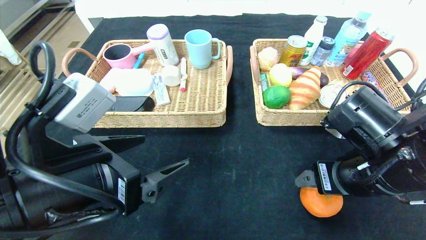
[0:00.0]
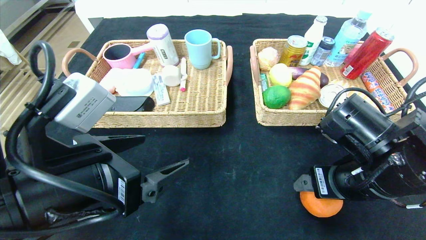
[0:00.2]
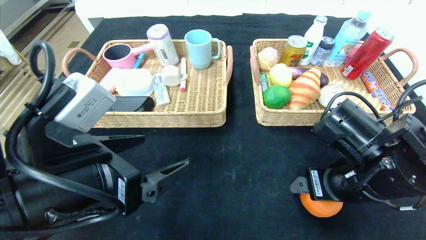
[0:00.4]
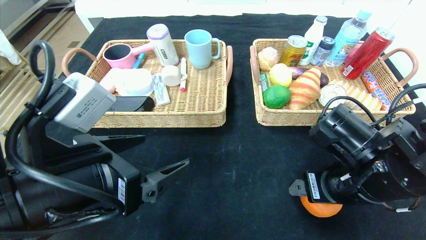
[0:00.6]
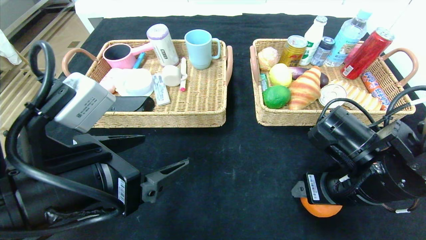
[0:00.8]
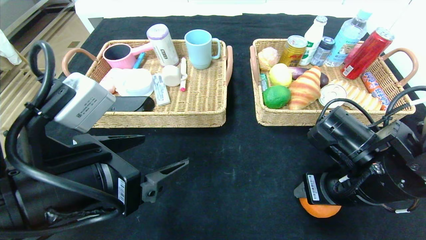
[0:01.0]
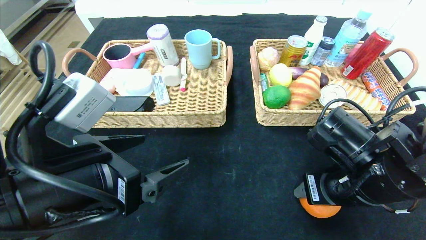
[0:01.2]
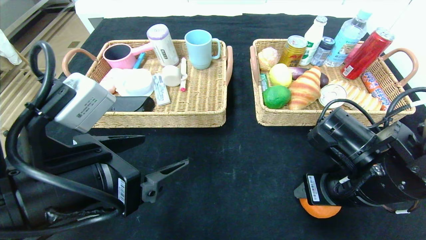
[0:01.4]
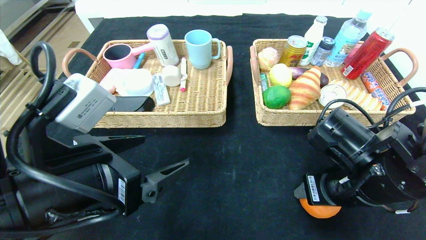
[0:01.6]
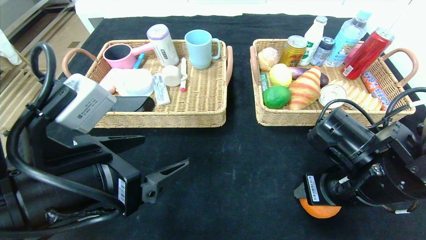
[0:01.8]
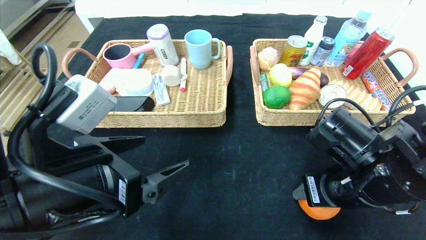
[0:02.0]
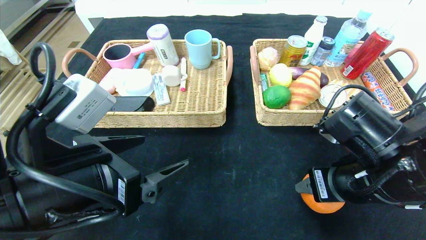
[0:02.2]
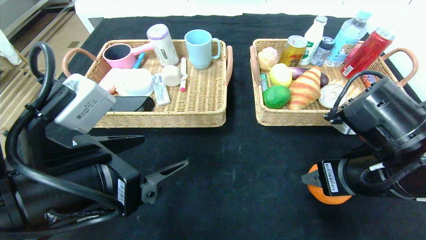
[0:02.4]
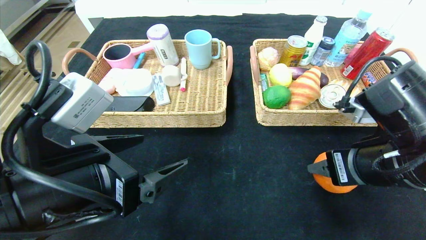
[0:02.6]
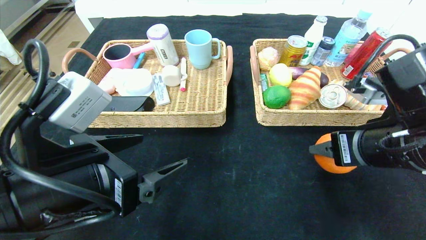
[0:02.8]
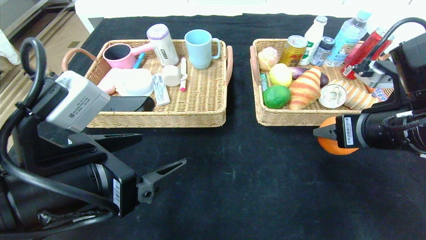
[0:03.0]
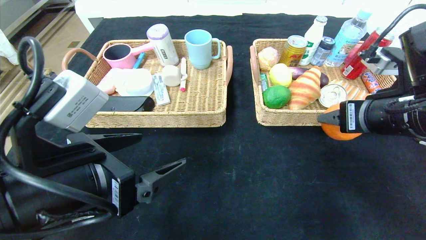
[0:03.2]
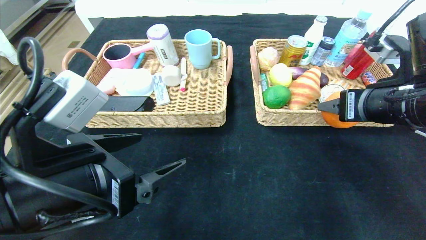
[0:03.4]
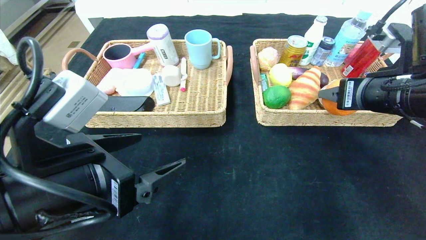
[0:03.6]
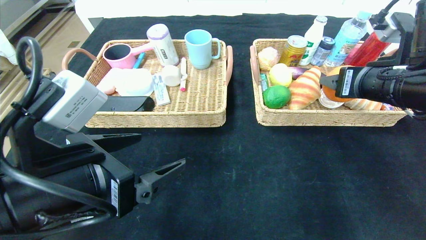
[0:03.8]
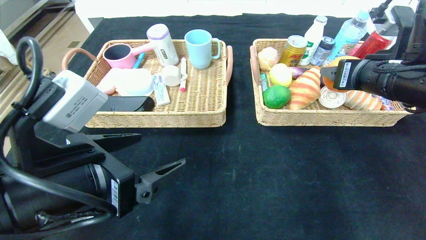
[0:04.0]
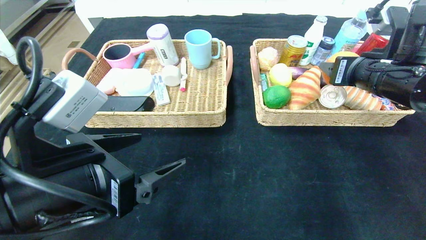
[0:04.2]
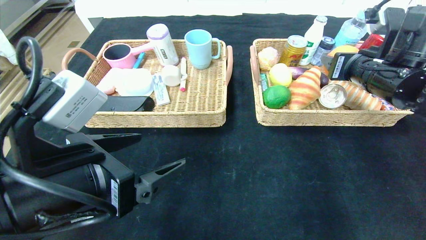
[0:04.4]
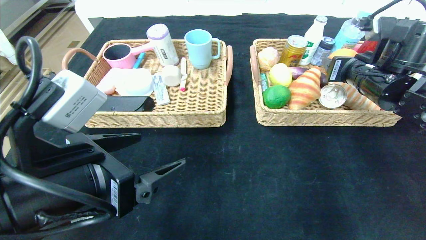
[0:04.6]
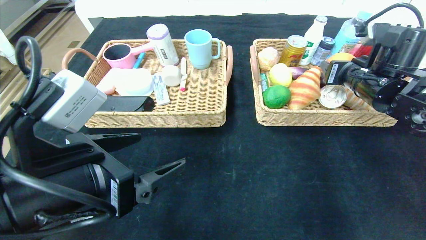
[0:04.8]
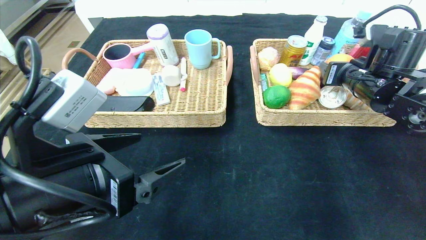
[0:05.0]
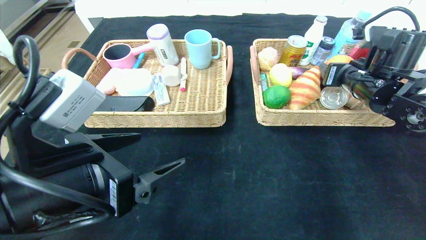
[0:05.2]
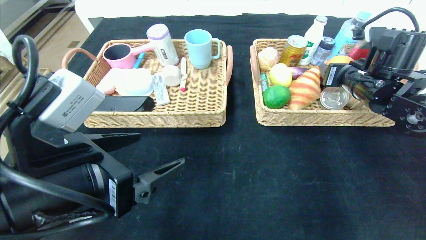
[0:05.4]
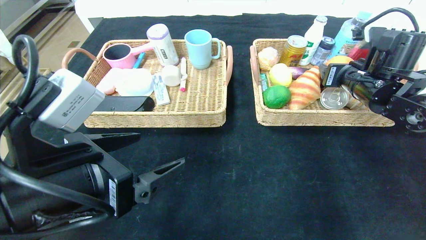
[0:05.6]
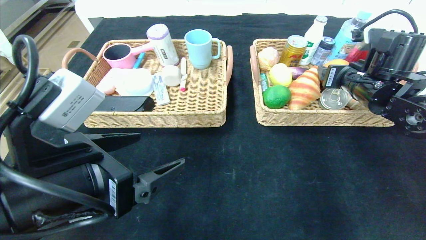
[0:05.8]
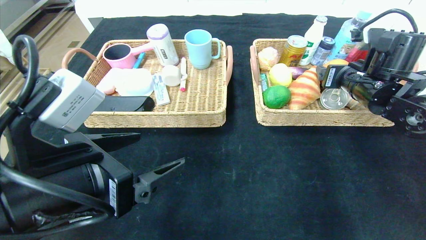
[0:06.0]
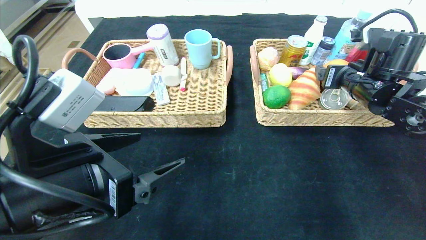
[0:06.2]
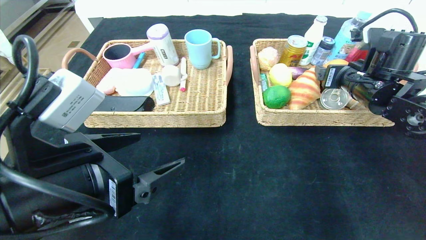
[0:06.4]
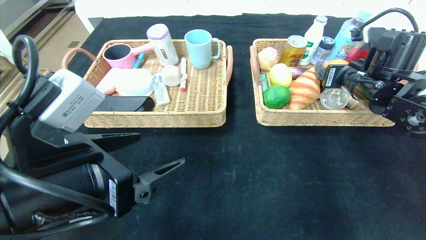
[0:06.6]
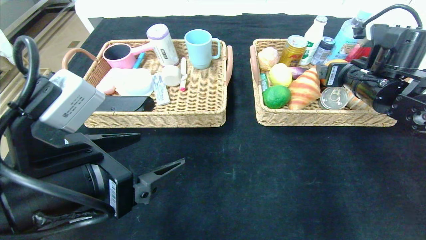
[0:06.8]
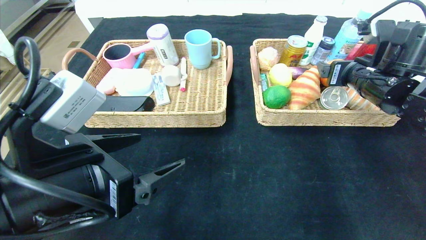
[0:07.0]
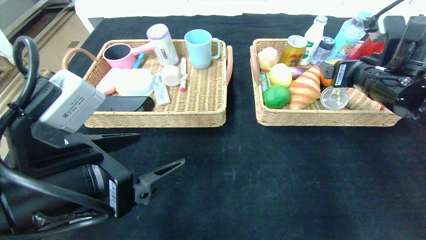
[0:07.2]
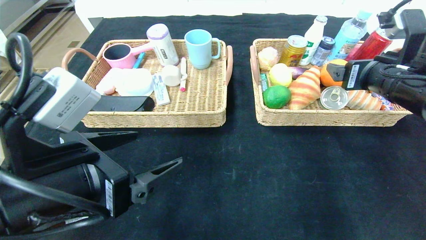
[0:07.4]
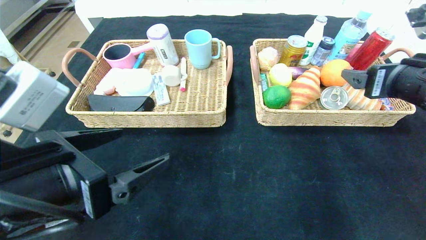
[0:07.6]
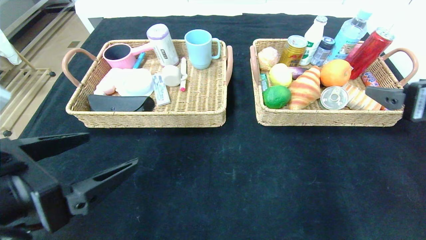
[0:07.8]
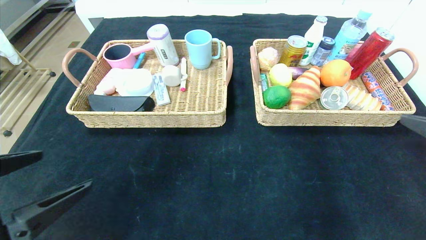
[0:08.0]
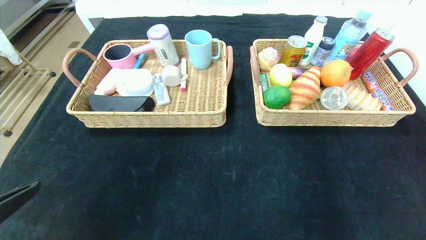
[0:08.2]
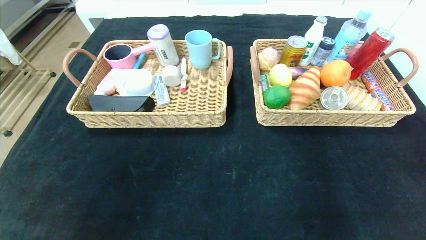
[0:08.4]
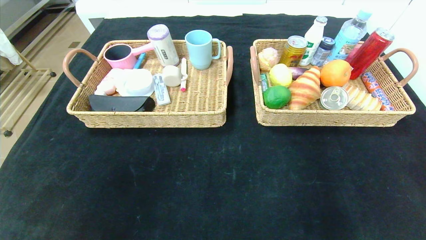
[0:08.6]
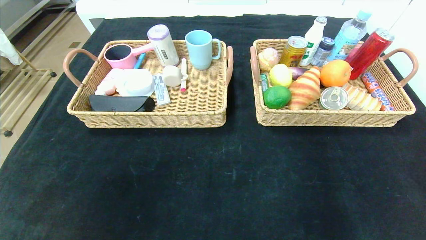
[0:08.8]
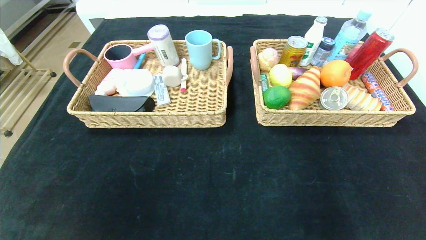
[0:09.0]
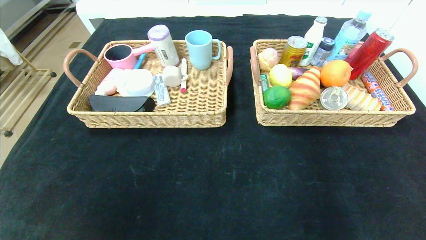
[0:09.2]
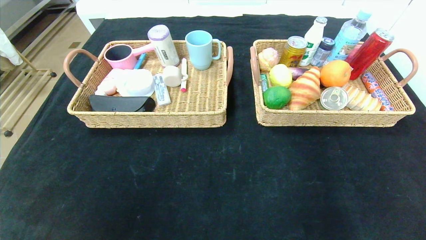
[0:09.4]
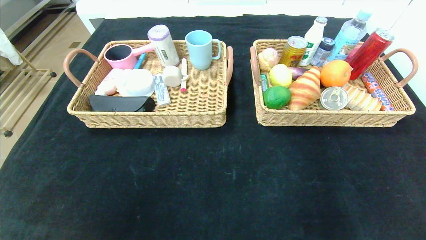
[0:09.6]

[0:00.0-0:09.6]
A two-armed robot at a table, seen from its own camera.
Step, 0:00.0 to 0:06.4: Grasp the orange and put it in the right basket.
0:00.0 to 0:01.6: The right gripper closes up.
0:01.6 to 0:03.2: The right gripper is displaced upward and to the right by approximately 10 cm.
0:03.2 to 0:04.8: The right gripper travels forward by about 10 cm.
0:04.8 to 0:06.4: The right gripper opens.
0:06.4 to 0:08.0: The right gripper goes approximately 25 cm backward; the left gripper shifts about 10 cm to the left and backward.
0:08.0 to 0:09.6: The left gripper goes some 20 cm backward, while the right gripper shifts some 20 cm backward and downward.

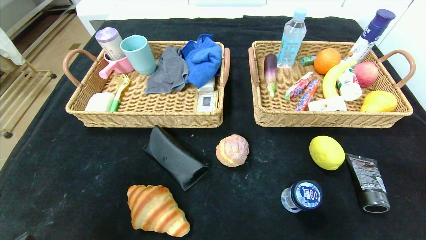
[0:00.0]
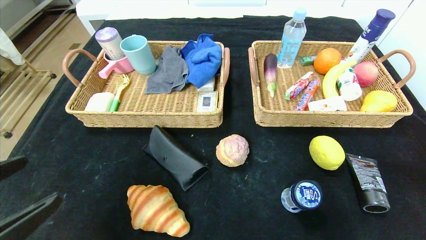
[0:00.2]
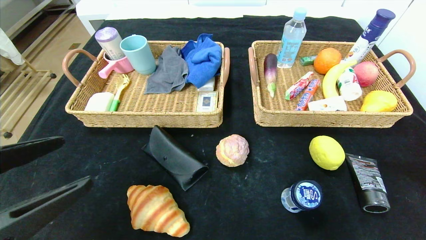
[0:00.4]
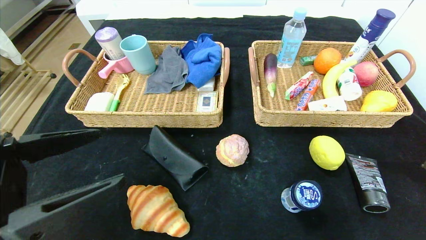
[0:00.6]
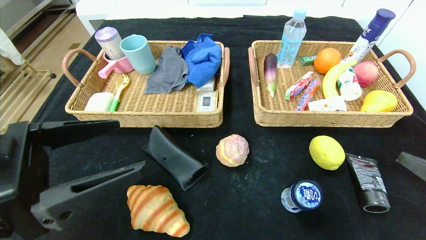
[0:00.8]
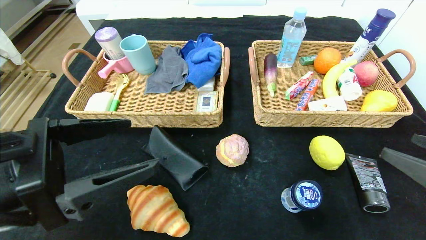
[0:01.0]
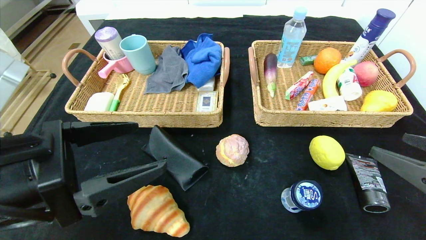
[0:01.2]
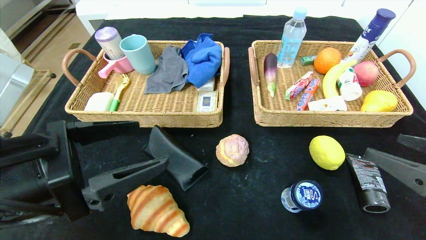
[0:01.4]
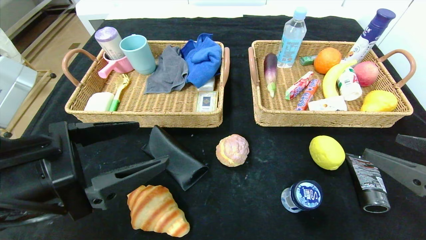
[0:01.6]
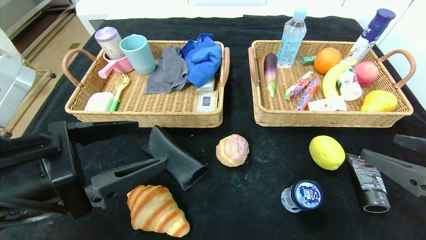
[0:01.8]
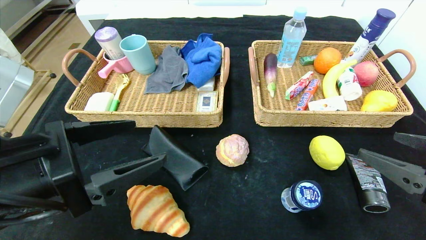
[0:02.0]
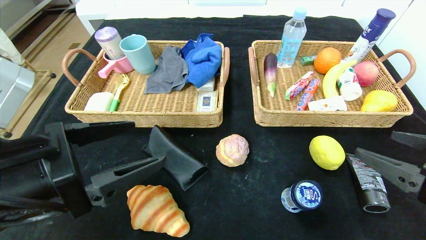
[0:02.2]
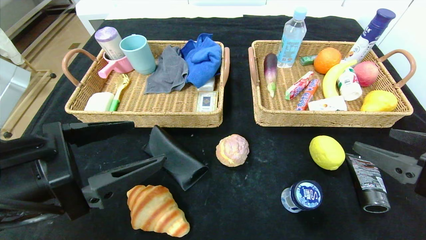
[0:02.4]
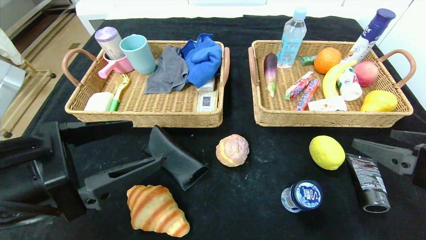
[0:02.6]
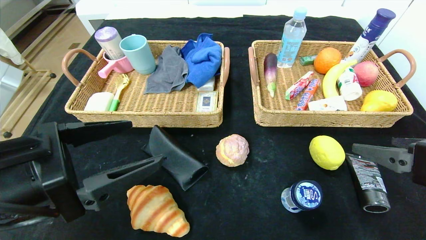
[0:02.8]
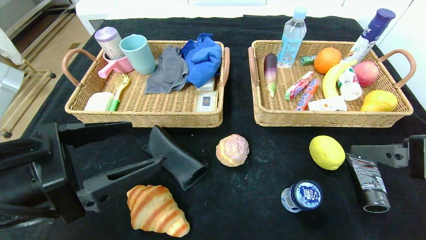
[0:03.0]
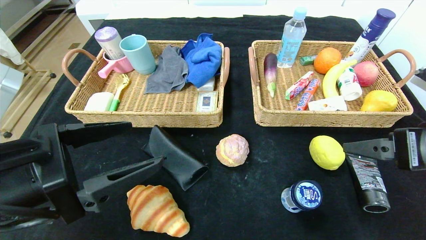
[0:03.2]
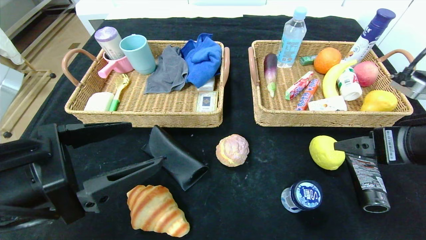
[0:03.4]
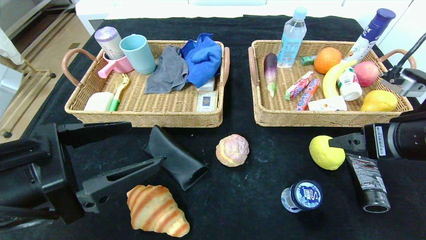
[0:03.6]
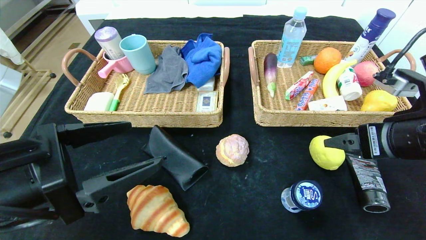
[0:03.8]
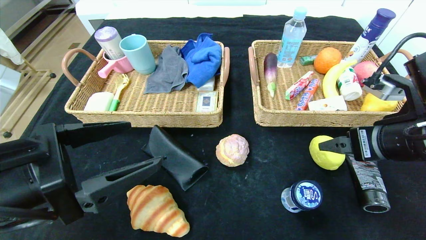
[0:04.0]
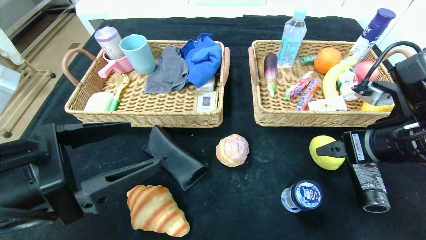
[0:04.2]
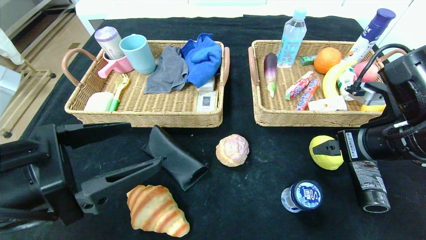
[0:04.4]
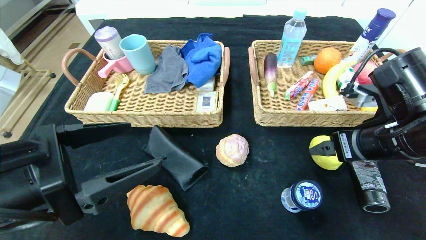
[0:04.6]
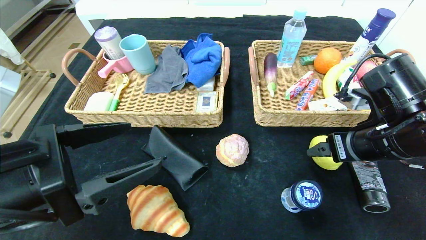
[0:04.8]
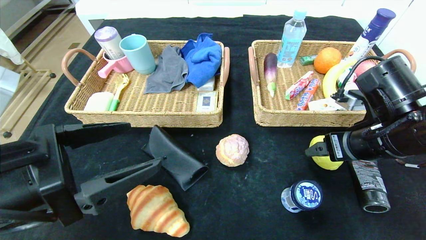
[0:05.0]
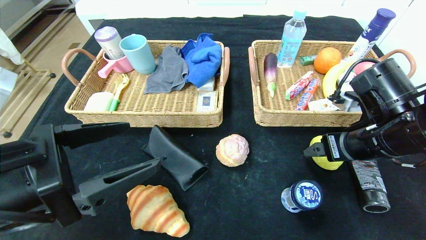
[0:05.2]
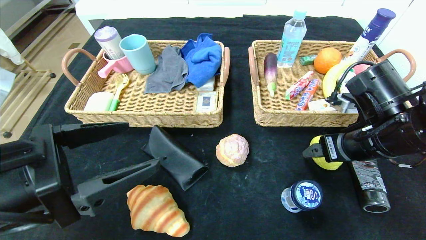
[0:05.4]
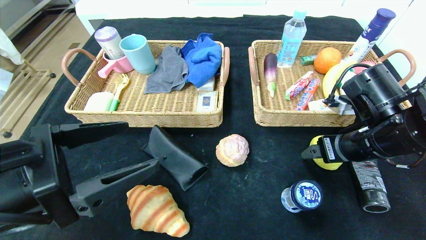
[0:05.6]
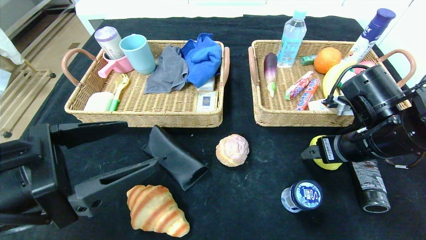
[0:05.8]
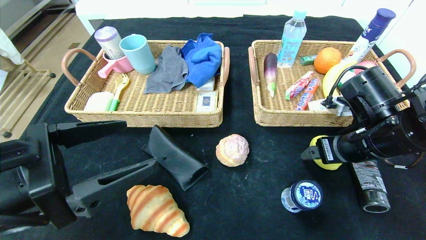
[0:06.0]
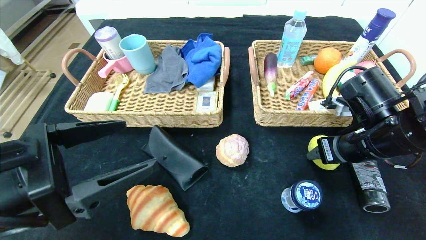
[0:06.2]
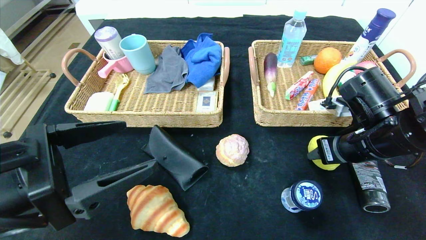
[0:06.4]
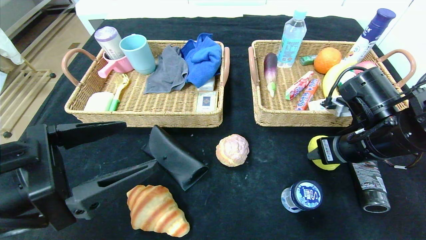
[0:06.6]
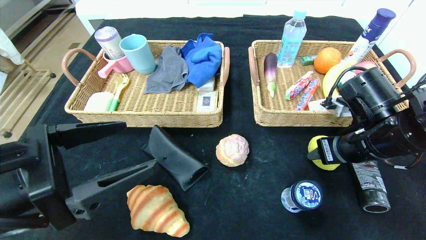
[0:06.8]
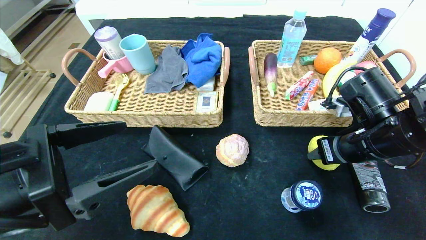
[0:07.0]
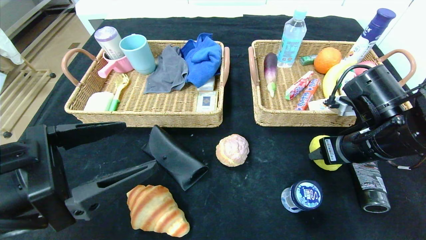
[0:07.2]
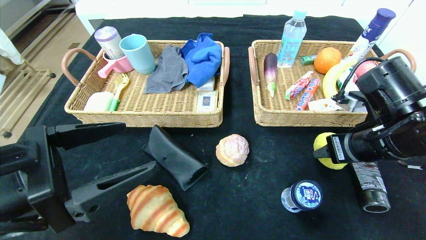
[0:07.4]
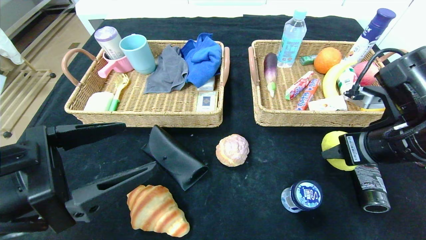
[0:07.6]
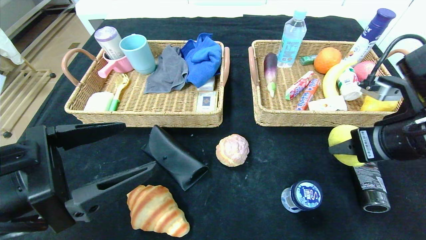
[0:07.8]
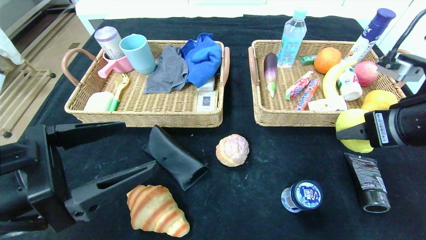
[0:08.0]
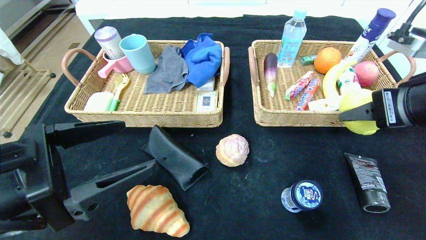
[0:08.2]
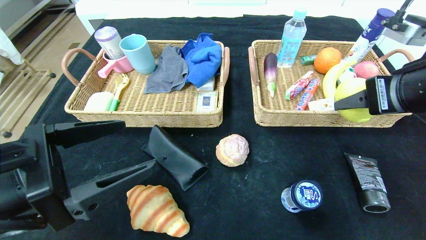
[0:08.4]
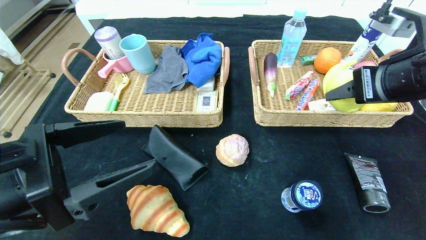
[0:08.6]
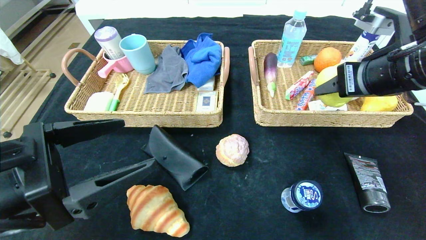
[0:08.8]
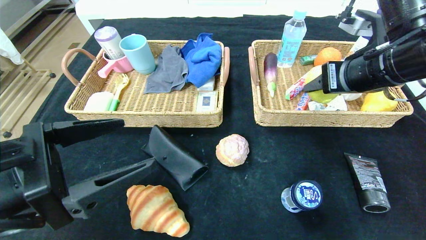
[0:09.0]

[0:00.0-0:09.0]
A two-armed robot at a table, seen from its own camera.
0:00.0 to 0:01.6: The left gripper goes about 15 cm forward and to the right, while the right gripper heads forward, to the left and upward, covering about 10 cm.
0:01.6 to 0:03.0: The right gripper changes place by about 5 cm.
0:03.0 to 0:04.4: The right gripper goes about 5 cm forward.
0:04.4 to 0:06.0: The grippers stay close to where they were, moving slightly.
0:06.0 to 0:07.6: The right gripper moves roughly 5 cm, and closes.
0:07.6 to 0:09.0: The right gripper goes about 10 cm upward and forward.
